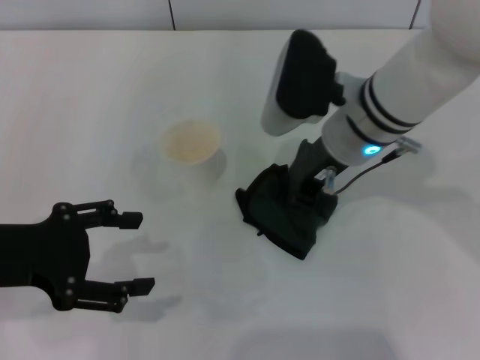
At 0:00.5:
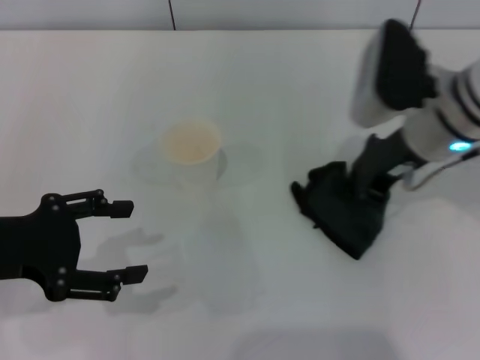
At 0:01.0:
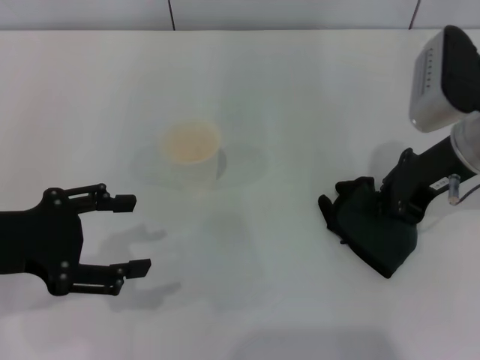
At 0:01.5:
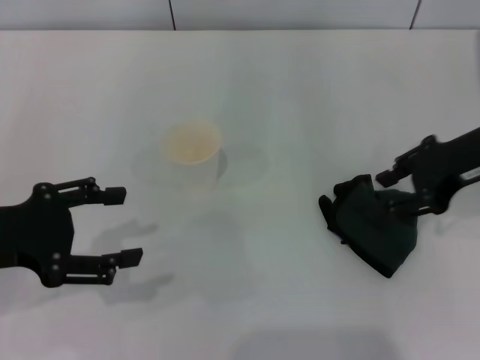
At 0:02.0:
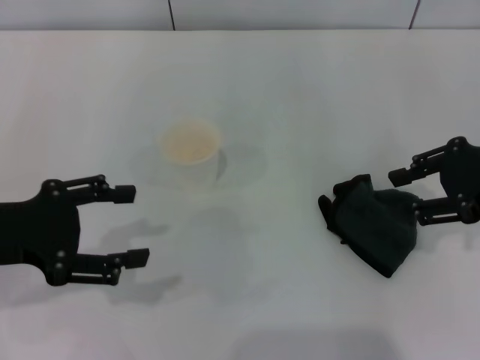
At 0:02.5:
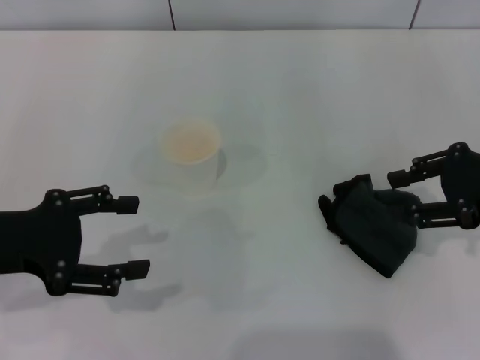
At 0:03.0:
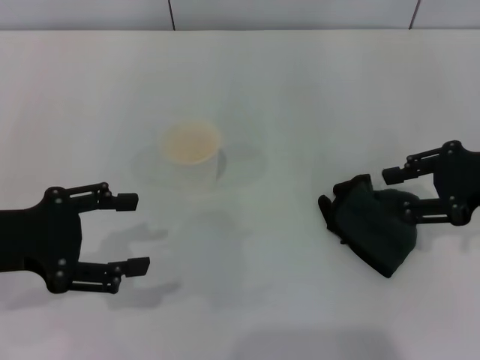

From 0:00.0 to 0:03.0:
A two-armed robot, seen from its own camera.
From 0:00.0 to 0:01.5: The right gripper goes about 15 cm to the right, and opens.
From 0:01.5 to 0:03.0: The right gripper changes place by roughly 5 cm.
